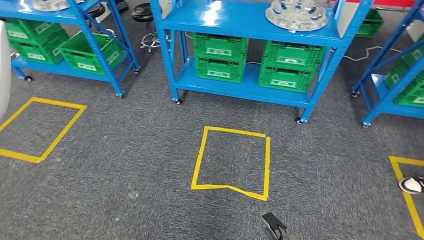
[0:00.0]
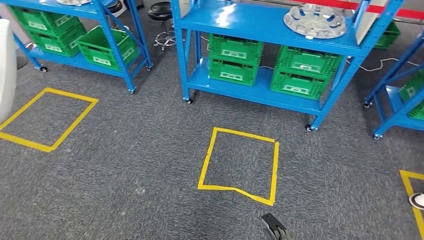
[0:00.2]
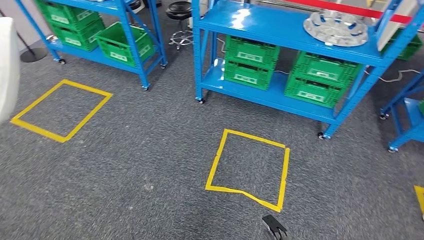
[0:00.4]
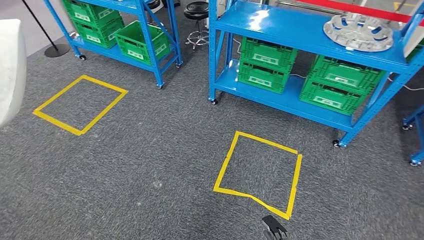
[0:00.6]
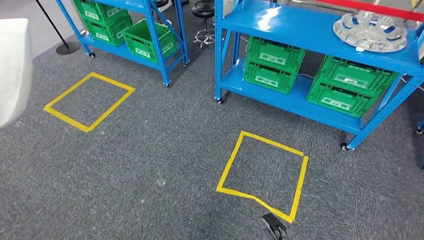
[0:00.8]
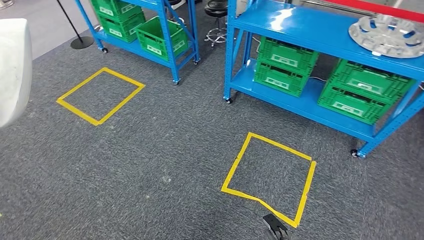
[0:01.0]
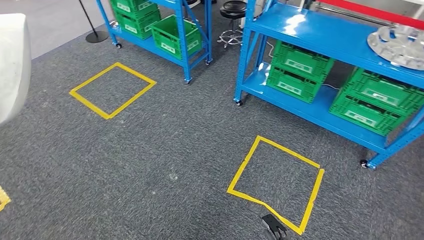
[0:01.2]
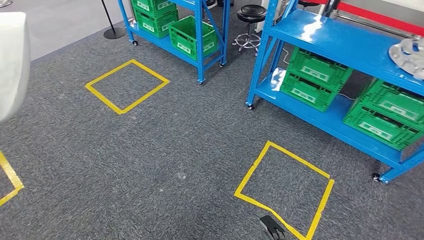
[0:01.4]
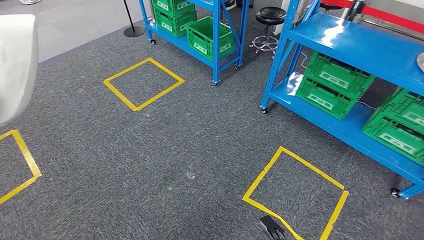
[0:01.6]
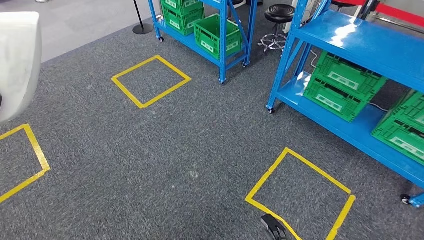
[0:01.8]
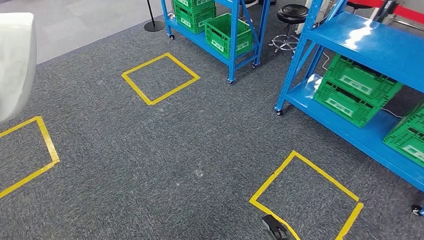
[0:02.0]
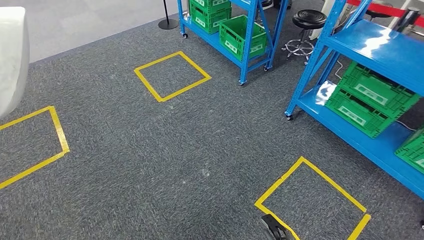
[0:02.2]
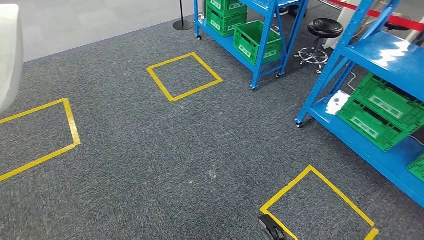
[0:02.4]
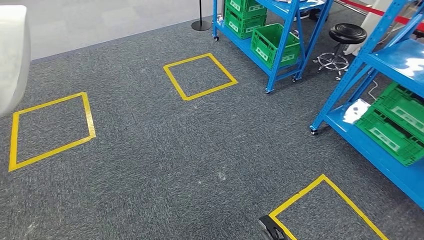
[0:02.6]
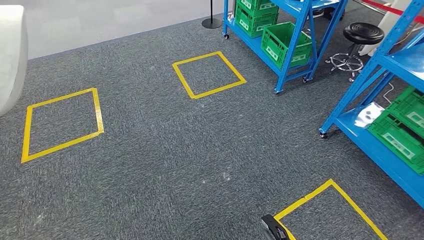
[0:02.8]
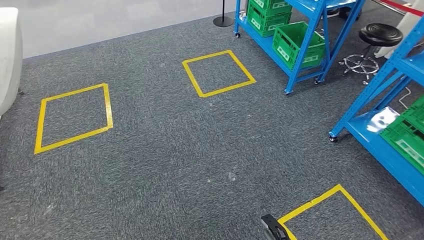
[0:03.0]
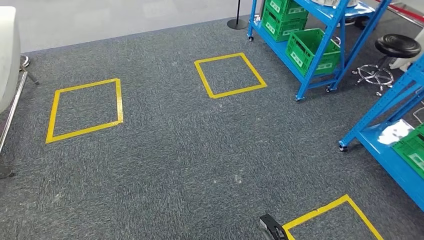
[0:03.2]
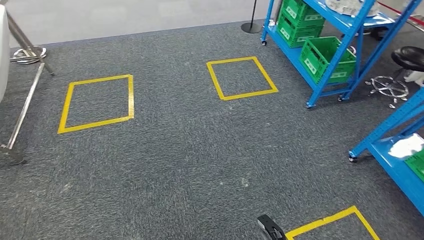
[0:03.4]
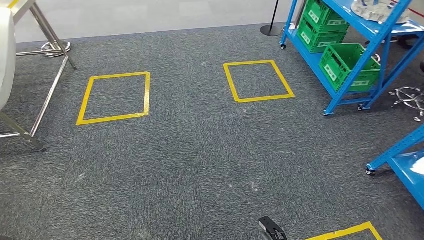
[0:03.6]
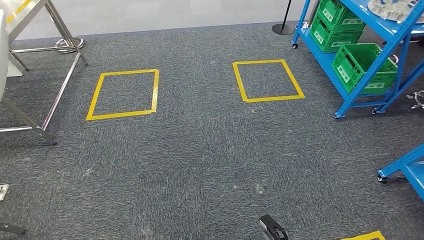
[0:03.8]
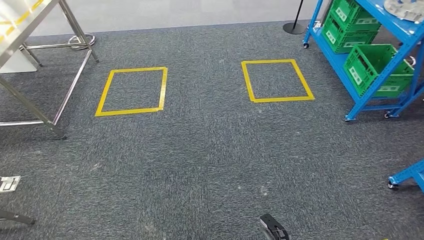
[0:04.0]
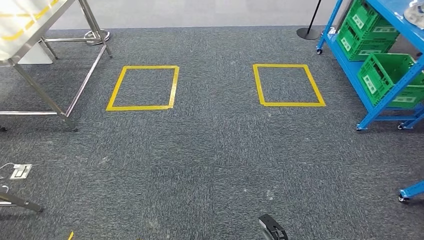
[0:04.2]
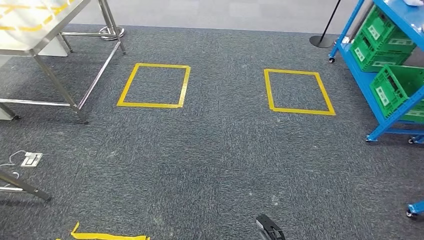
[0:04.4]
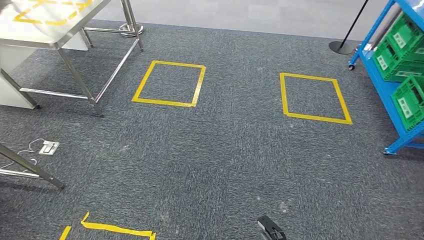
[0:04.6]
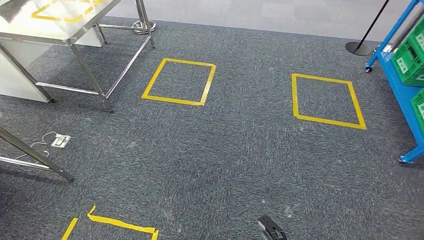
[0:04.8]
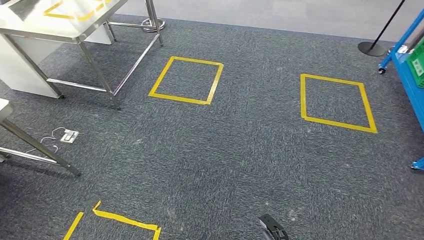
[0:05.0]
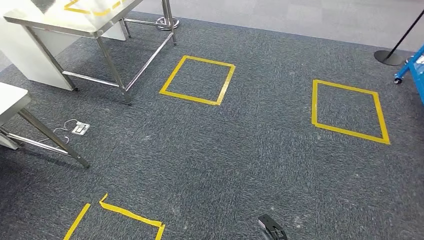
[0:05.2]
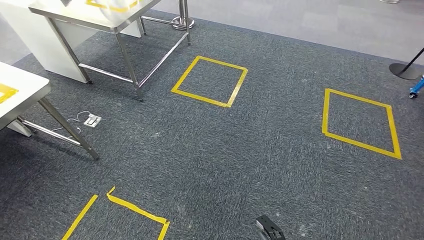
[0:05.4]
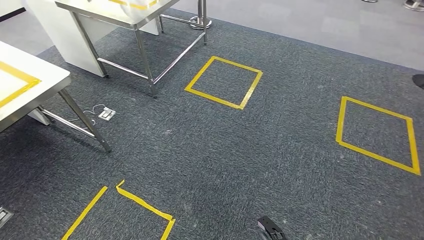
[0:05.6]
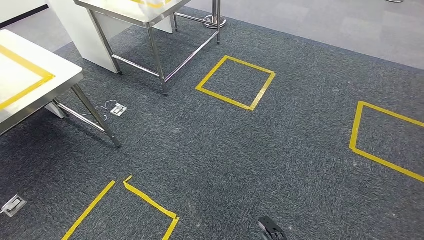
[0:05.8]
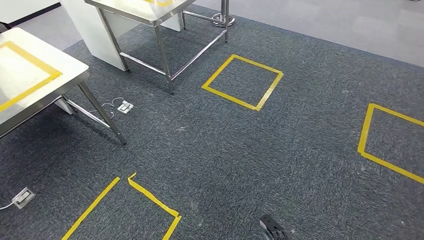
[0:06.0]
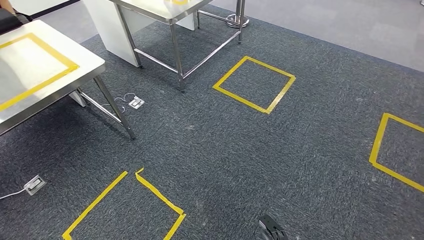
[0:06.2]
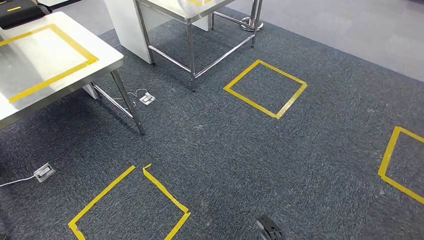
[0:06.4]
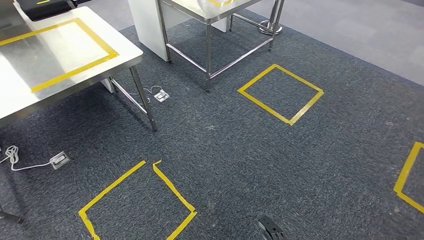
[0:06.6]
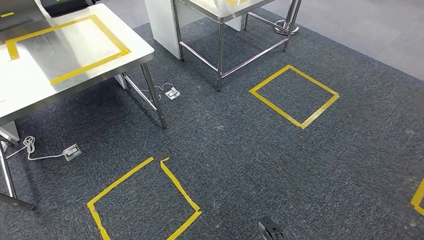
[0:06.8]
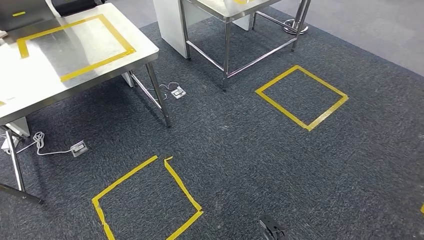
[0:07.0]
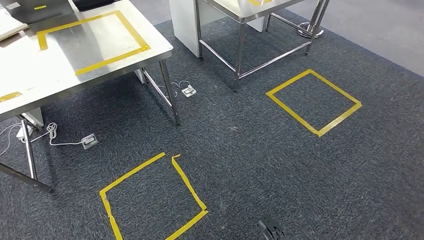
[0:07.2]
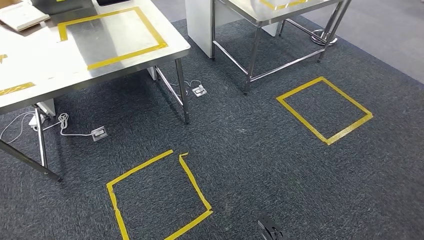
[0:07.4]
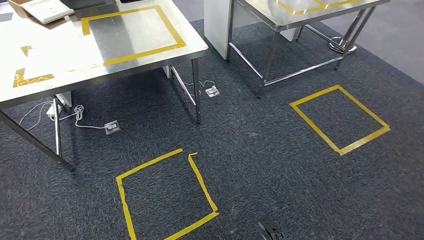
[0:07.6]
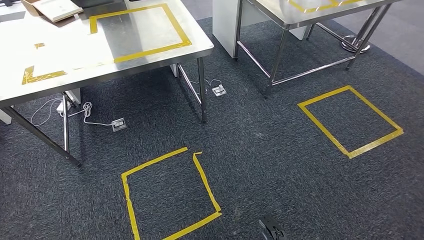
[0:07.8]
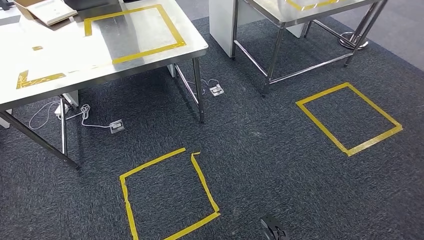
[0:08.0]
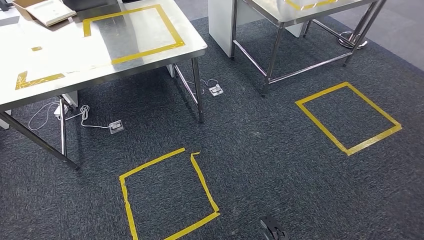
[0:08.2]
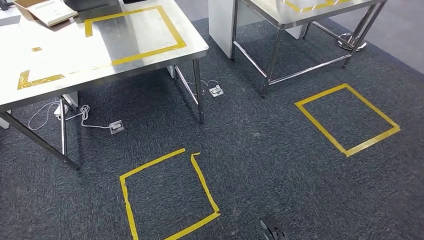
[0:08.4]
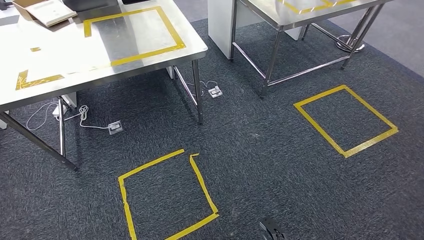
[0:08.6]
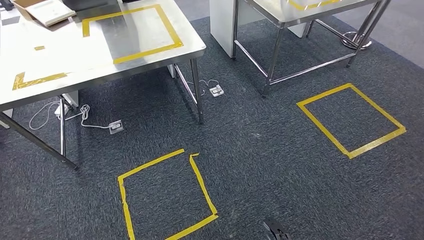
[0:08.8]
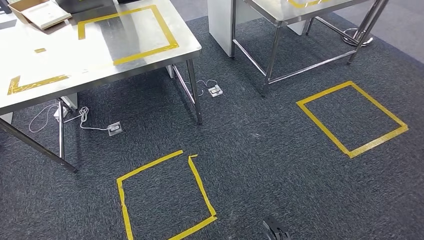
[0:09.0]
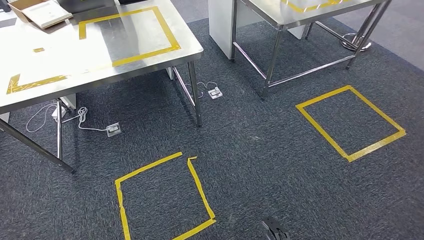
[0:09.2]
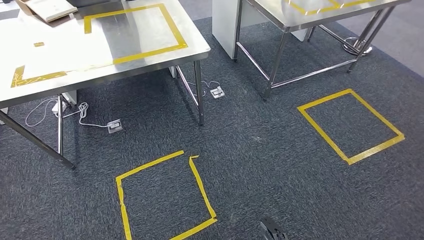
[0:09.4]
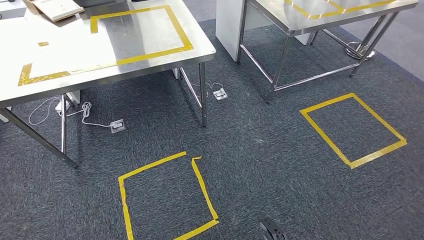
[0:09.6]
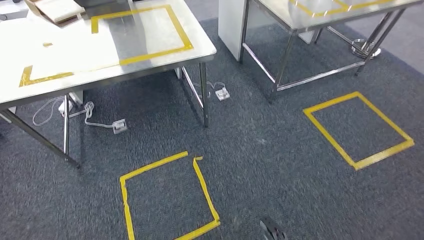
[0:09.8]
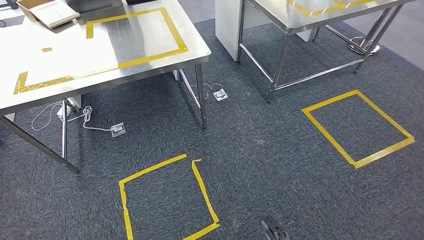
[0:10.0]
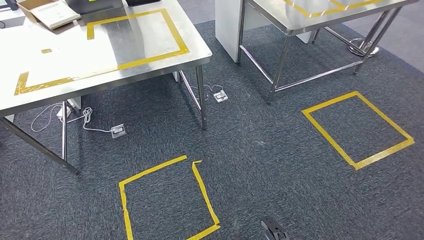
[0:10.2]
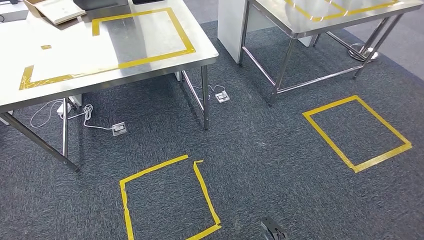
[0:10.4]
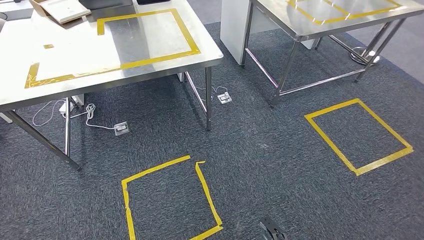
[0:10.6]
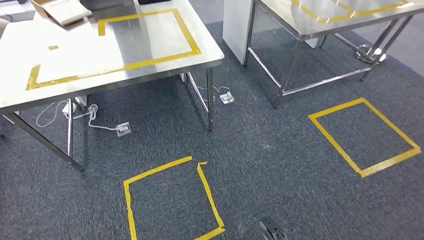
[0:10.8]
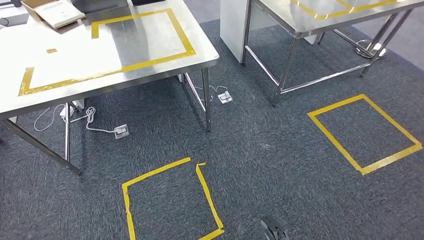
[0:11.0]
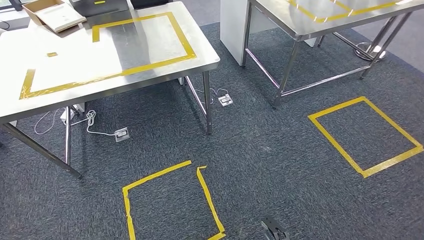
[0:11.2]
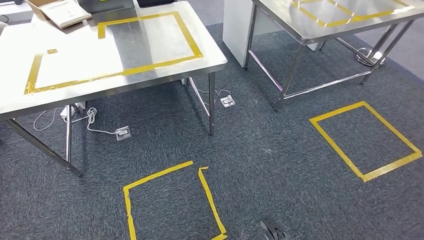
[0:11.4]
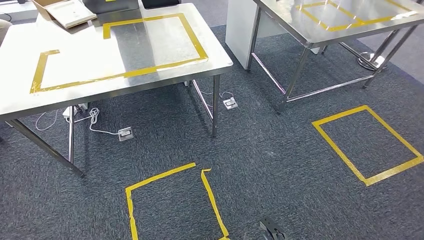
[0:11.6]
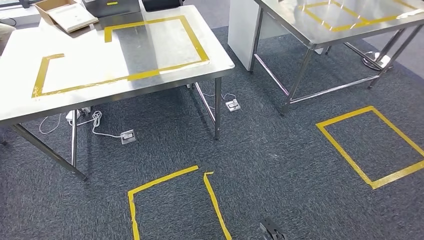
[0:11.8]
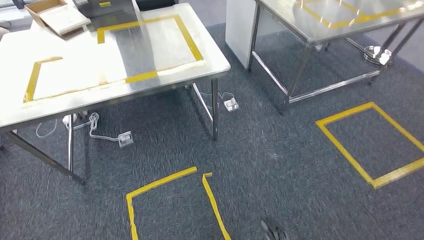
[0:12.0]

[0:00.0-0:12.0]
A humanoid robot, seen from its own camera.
0:07.6 to 0:09.0: The hands stay close to where they were, moving slightly.

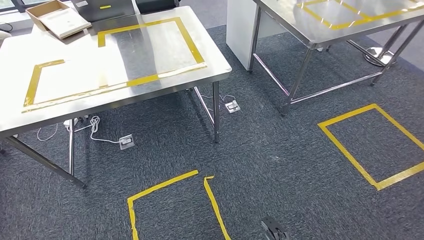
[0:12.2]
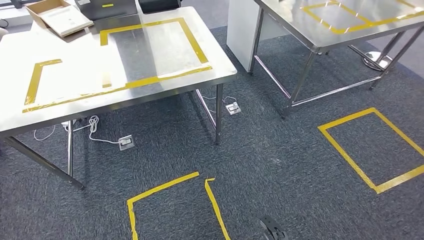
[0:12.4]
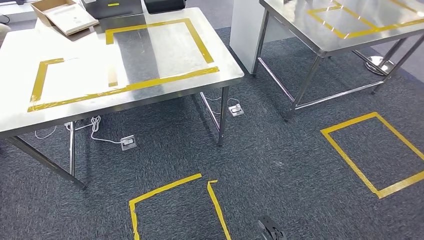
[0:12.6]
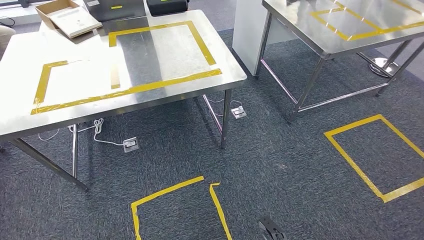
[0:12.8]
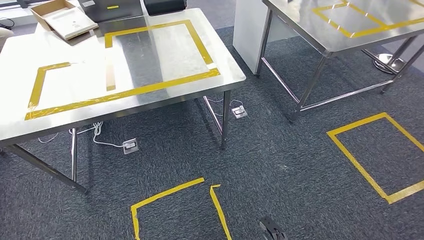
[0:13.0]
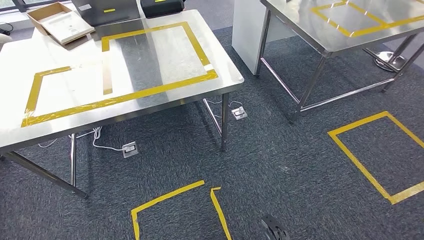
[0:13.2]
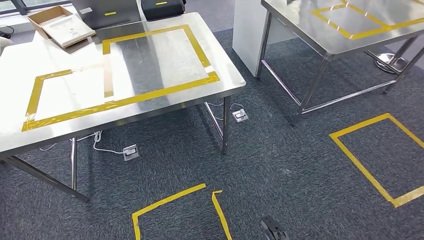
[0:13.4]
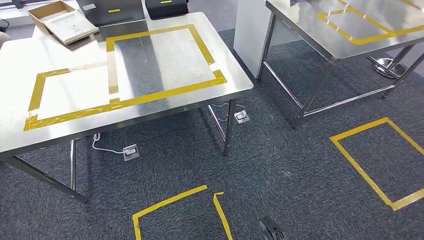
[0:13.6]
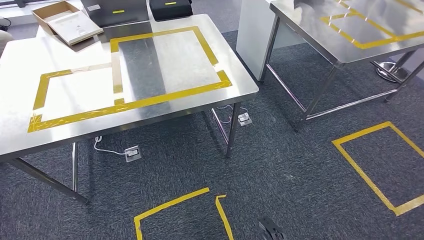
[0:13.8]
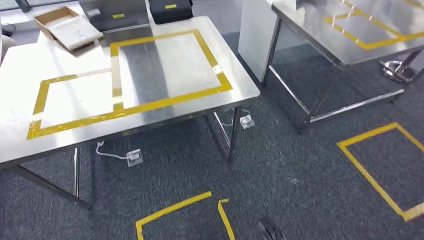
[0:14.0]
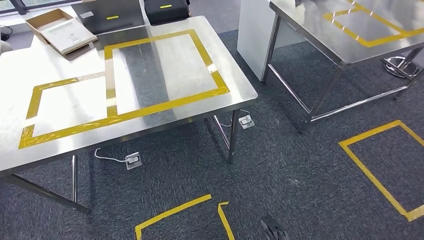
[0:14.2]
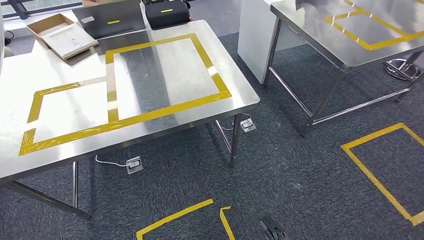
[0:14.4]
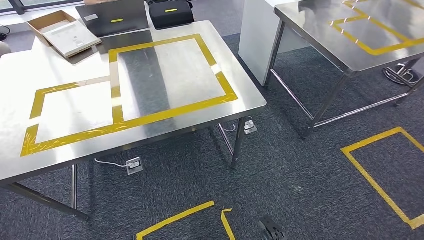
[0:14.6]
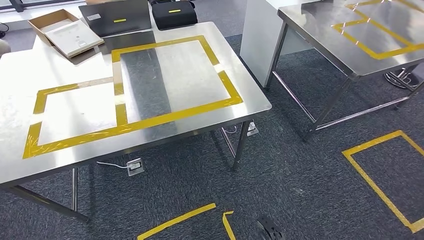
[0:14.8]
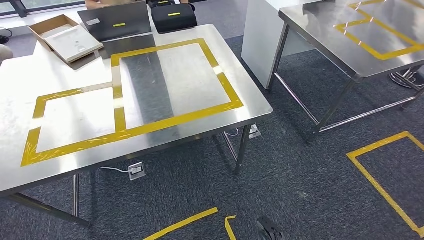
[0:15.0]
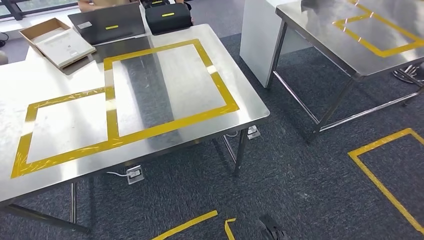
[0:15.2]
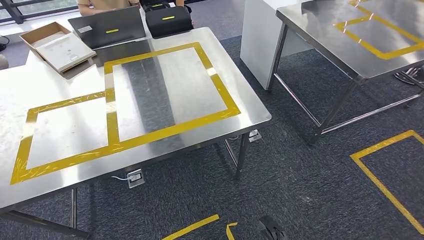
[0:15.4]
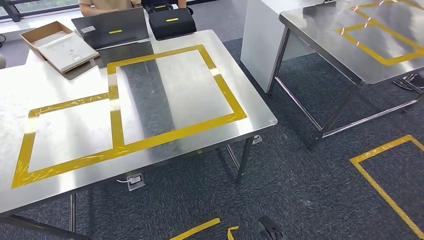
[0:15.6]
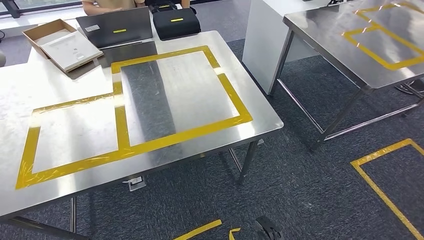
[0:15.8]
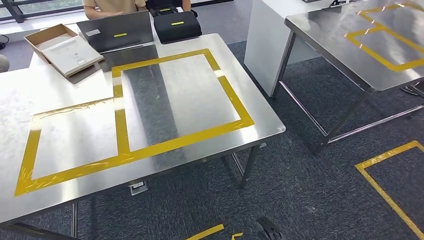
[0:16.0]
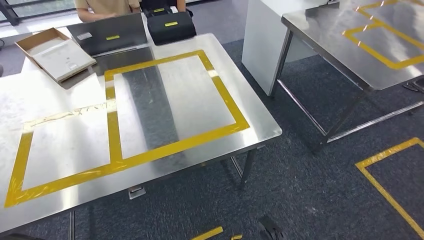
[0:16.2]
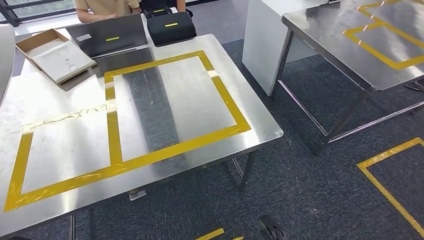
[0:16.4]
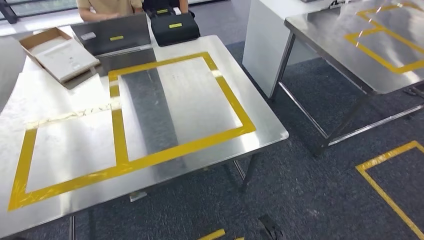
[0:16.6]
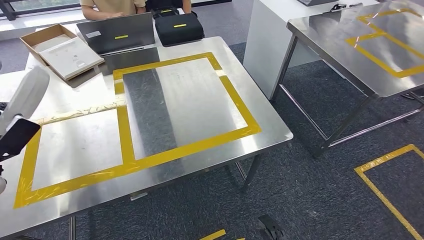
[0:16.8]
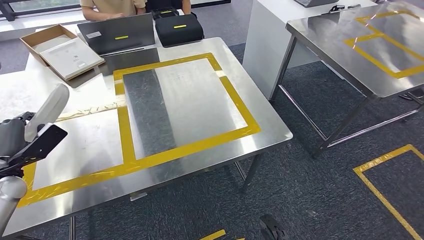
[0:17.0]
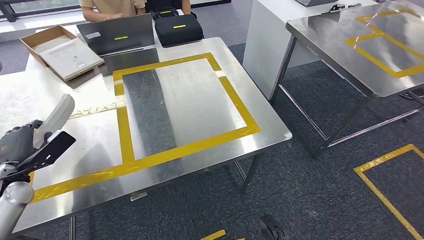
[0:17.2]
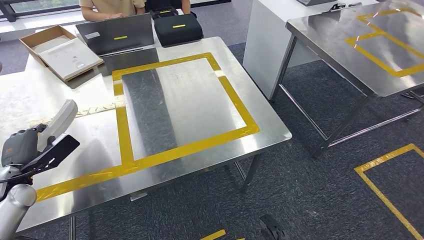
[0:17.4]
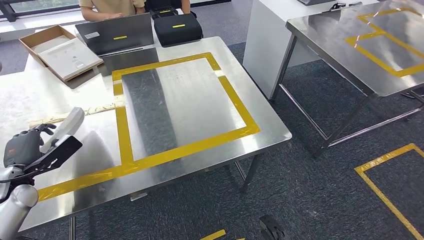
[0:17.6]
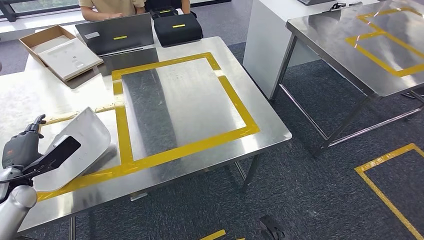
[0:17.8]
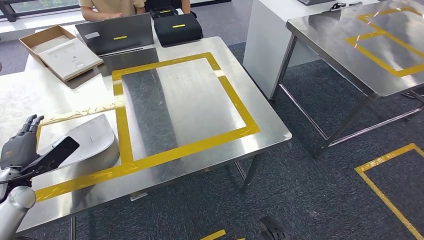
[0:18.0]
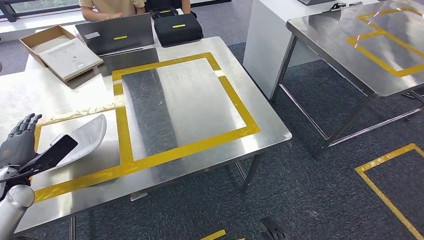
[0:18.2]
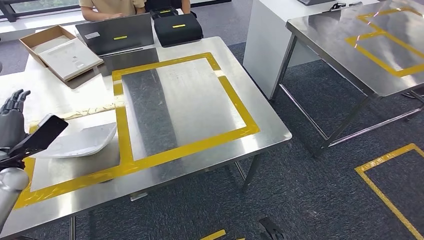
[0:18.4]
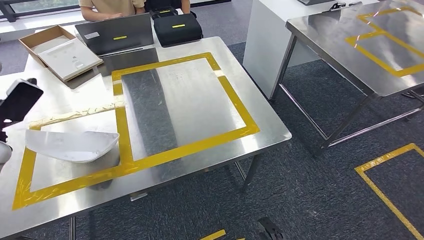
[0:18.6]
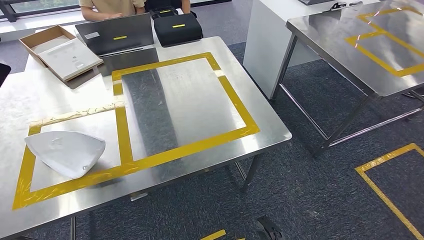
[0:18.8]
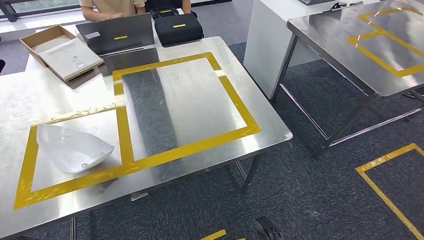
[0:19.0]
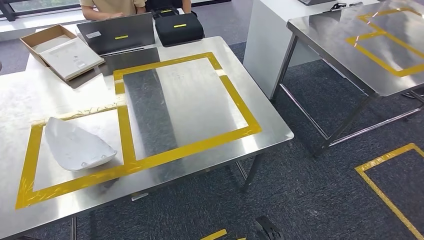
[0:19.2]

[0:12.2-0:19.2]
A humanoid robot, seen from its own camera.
Step, 0:12.2 to 0:16.4: Move the small parts to the workbench.
0:17.8 to 0:19.2: The left hand shifts about 20 cm upward.
